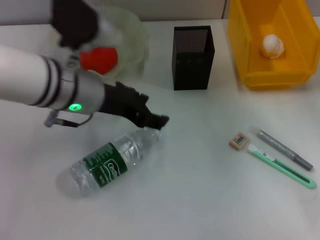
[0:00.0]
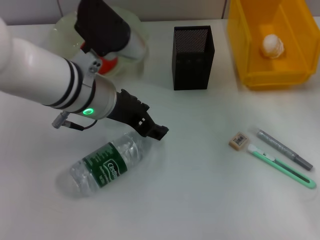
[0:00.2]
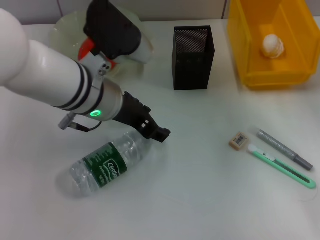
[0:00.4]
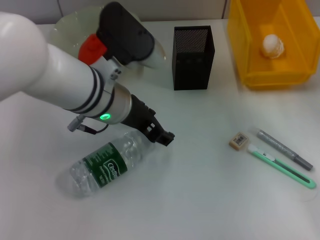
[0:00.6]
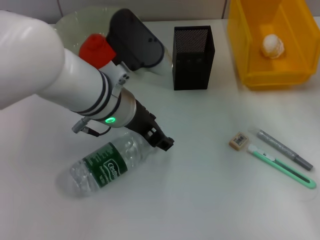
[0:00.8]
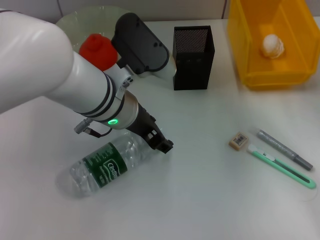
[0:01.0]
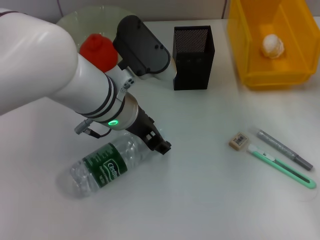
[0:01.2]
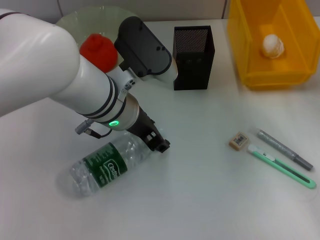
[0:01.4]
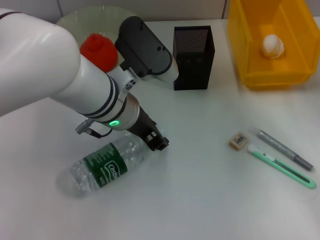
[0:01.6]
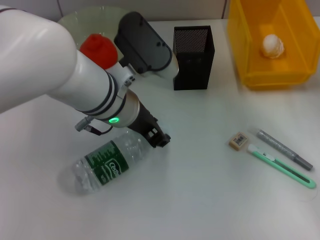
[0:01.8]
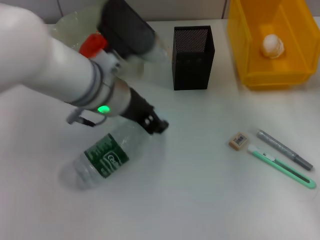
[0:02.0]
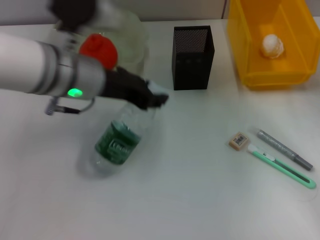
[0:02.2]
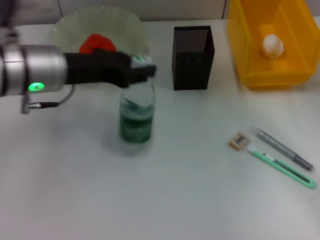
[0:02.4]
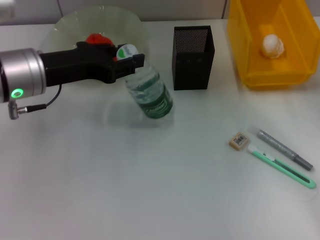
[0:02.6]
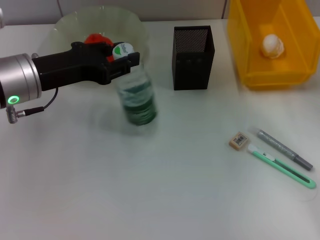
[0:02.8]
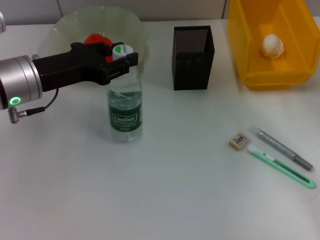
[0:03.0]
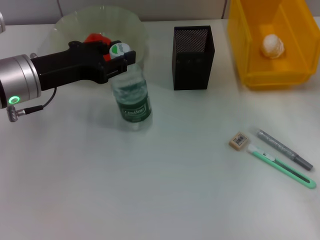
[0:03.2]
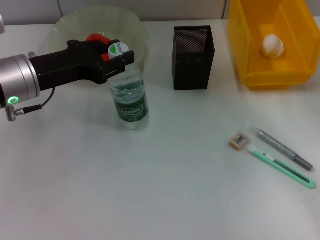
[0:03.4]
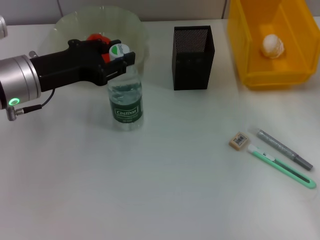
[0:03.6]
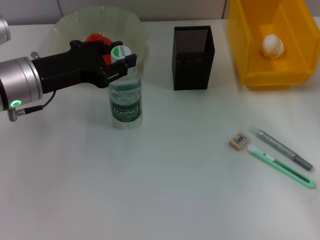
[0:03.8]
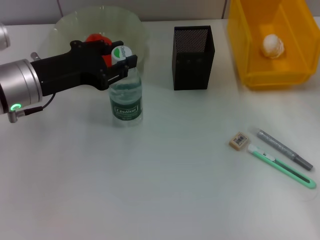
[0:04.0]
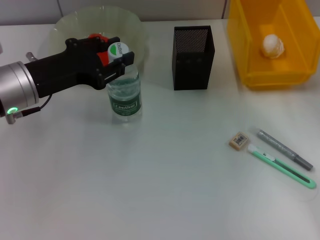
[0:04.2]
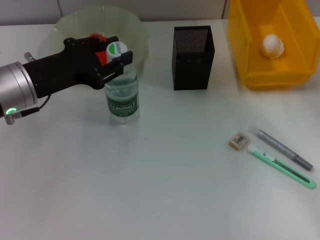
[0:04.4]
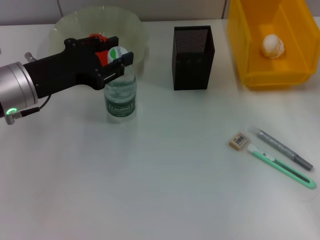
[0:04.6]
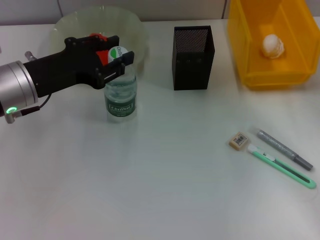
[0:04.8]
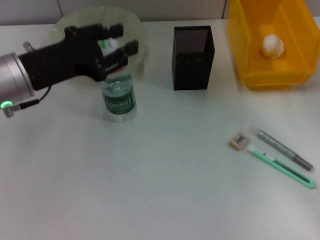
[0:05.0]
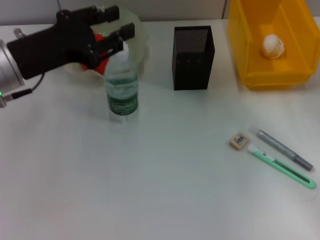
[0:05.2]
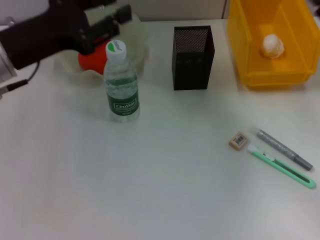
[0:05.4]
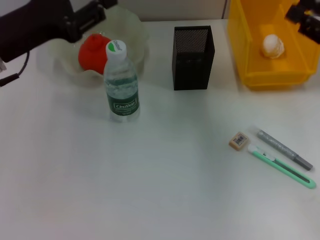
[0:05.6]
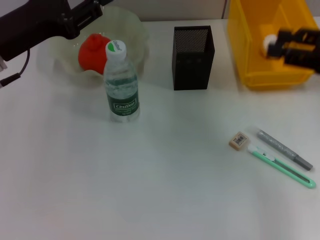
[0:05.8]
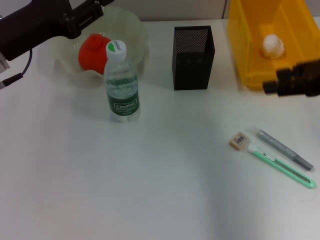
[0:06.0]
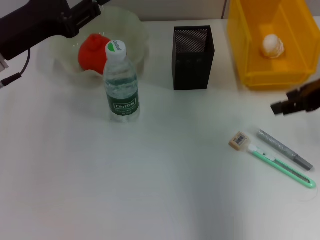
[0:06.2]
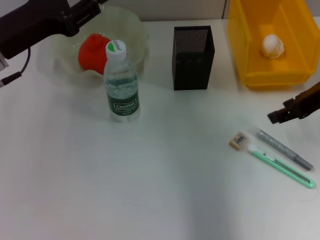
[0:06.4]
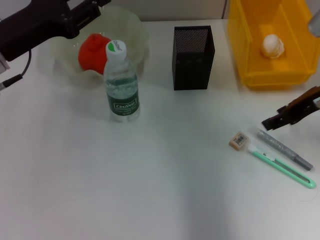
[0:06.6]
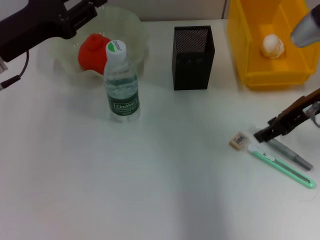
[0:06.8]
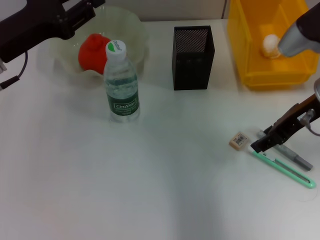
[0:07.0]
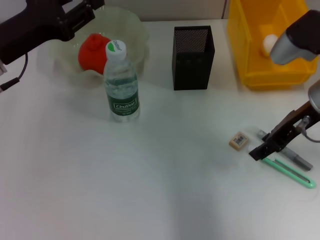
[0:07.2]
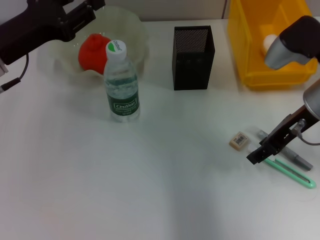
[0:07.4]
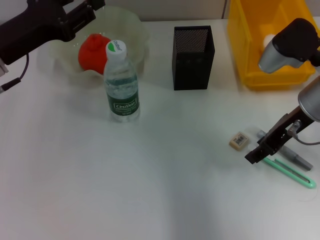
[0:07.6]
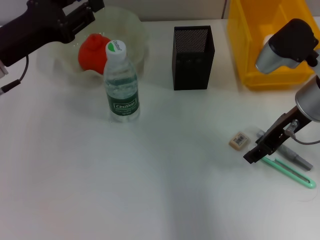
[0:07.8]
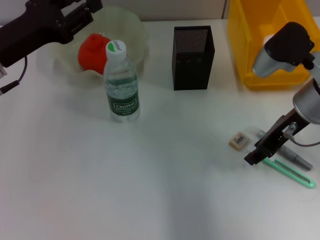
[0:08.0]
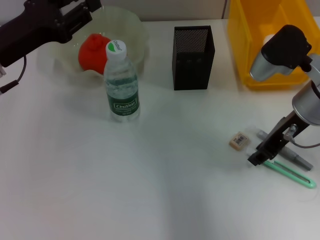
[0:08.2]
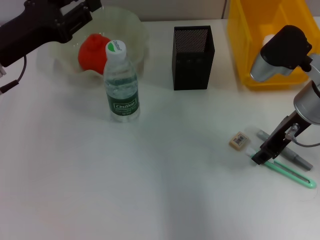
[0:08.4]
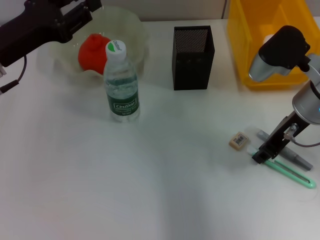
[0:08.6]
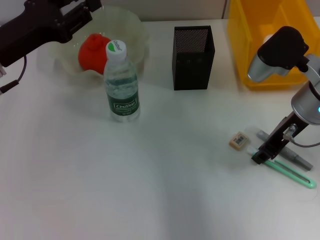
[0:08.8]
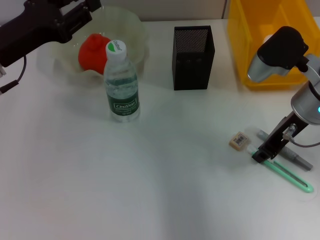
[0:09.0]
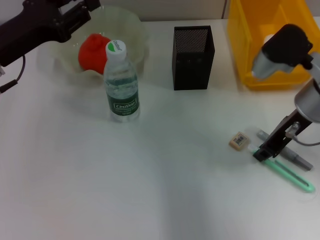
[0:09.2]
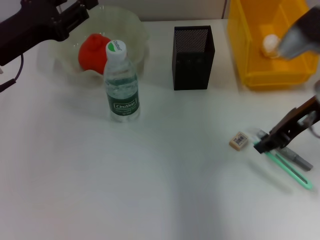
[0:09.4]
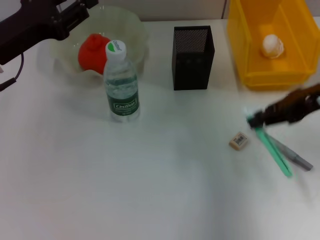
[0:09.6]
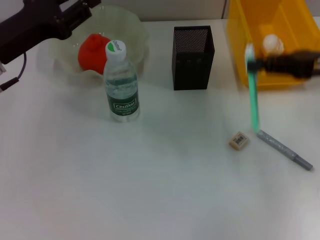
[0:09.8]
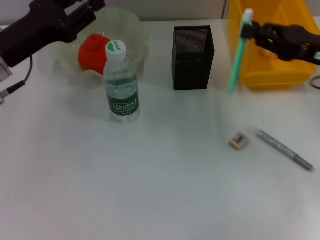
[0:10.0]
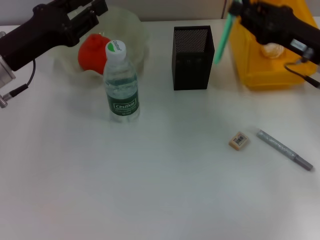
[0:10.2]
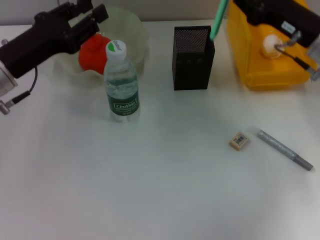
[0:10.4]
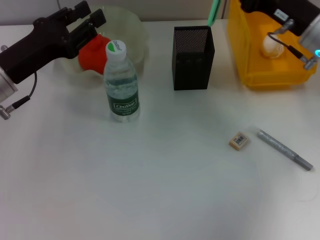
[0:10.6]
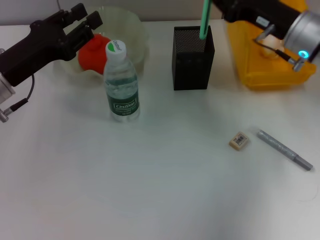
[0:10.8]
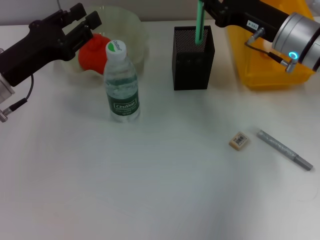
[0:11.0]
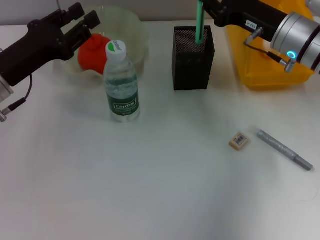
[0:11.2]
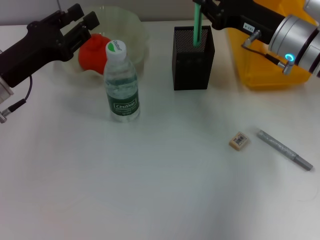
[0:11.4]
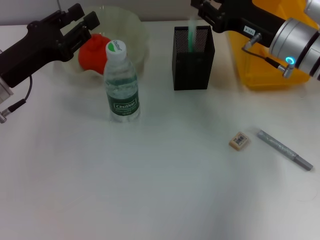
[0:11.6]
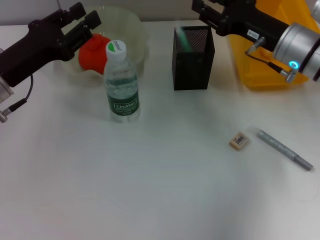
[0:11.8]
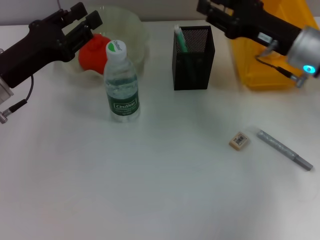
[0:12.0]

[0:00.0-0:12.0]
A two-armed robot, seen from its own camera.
Step, 0:00.0 to 0:01.4: Grab the water bottle with the left hand.
Step, 0:01.6 to 0:05.2: Place the water bottle on the table with the left hand.
Step, 0:05.4 to 0:08.8: Grab the blue utility knife with the right hand.
0:00.0 to 0:01.6: The left gripper heads to the right, covering about 5 cm.
0:01.6 to 0:03.0: The left gripper is displaced to the left by about 15 cm.
0:03.0 to 0:04.4: The grippers make only small movements.
0:04.4 to 0:06.0: The right gripper goes approximately 10 cm upward.
0:06.0 to 0:07.6: The right gripper heads to the left and downward, covering roughly 10 cm.
0:07.6 to 0:09.0: The right gripper closes up.
0:10.4 to 0:12.0: The right gripper opens its fingers.

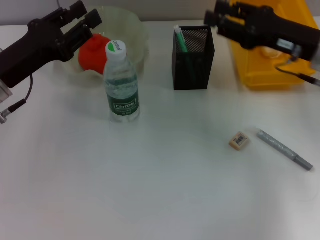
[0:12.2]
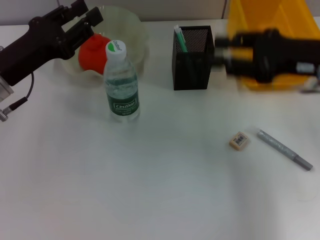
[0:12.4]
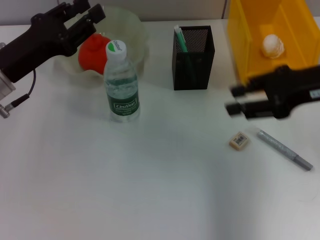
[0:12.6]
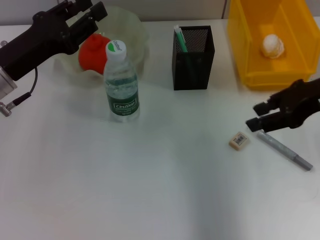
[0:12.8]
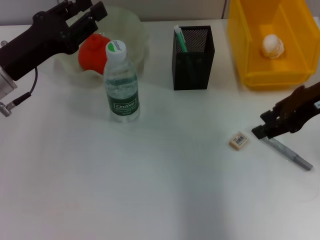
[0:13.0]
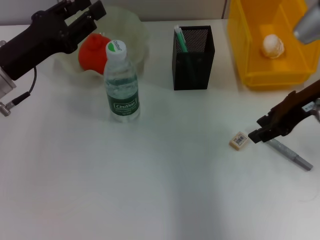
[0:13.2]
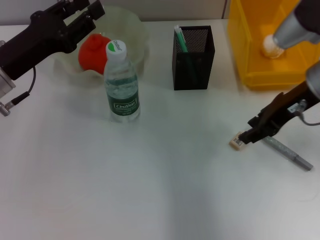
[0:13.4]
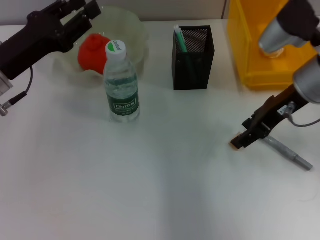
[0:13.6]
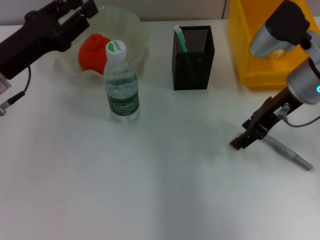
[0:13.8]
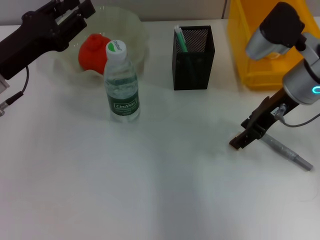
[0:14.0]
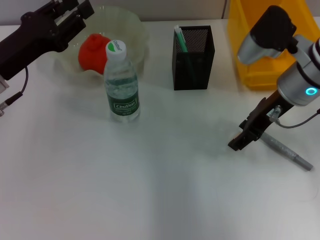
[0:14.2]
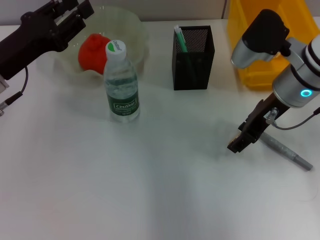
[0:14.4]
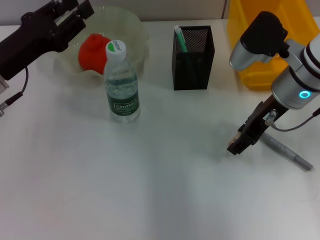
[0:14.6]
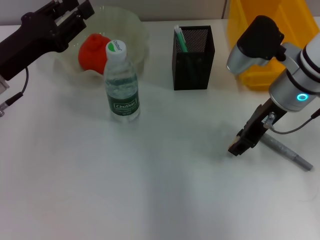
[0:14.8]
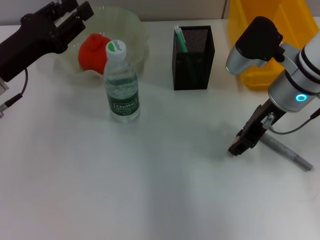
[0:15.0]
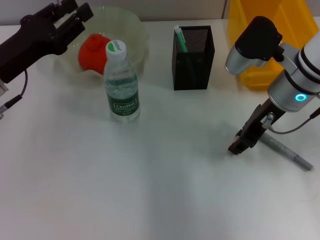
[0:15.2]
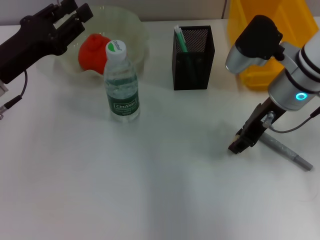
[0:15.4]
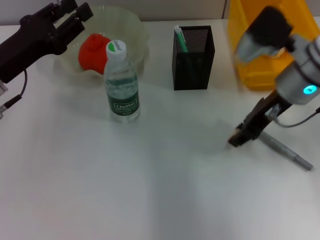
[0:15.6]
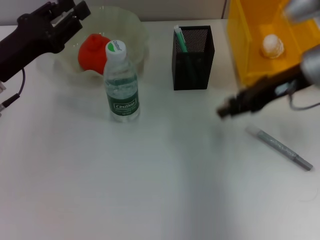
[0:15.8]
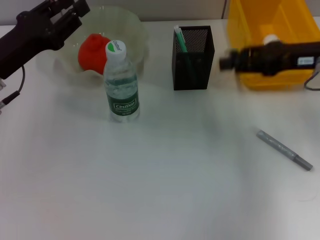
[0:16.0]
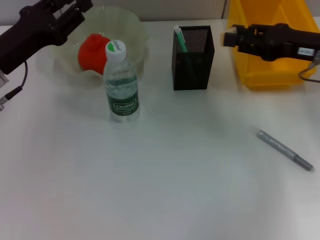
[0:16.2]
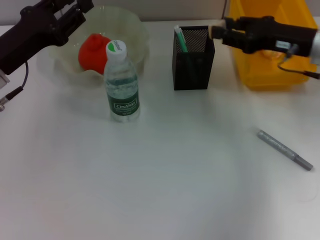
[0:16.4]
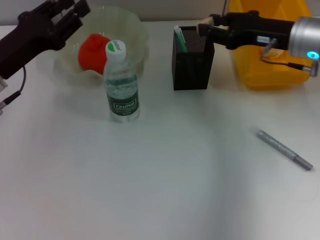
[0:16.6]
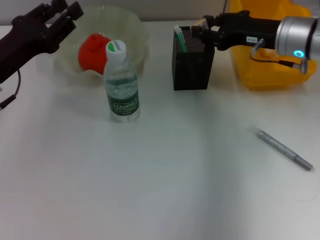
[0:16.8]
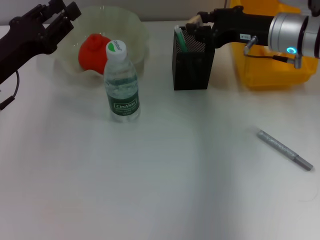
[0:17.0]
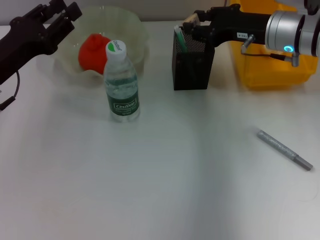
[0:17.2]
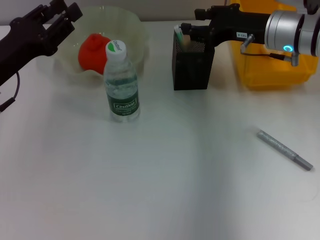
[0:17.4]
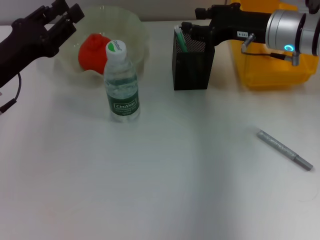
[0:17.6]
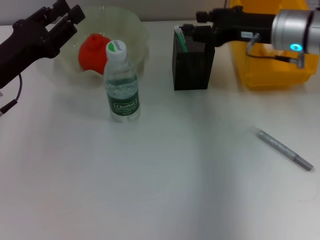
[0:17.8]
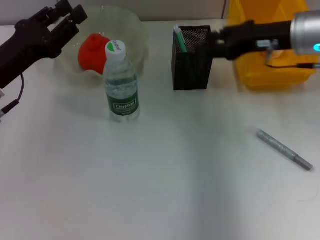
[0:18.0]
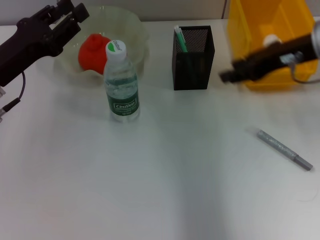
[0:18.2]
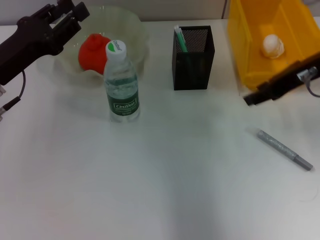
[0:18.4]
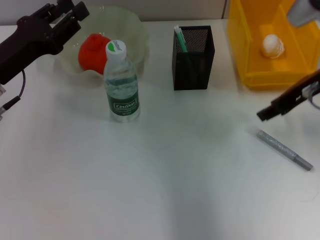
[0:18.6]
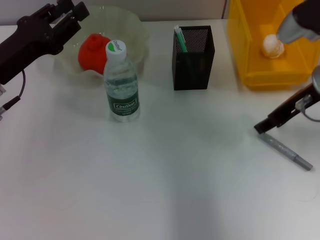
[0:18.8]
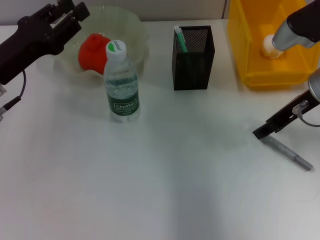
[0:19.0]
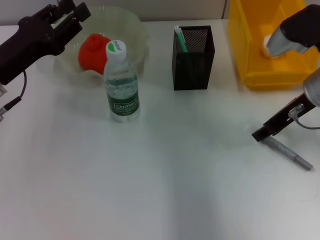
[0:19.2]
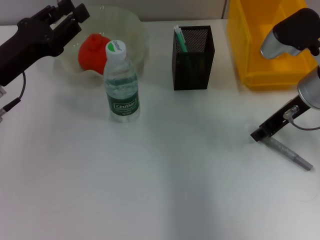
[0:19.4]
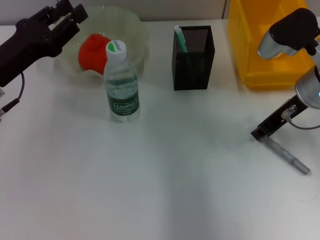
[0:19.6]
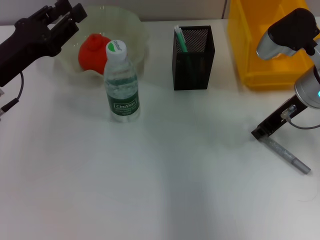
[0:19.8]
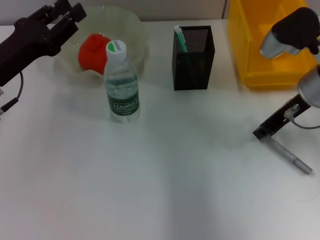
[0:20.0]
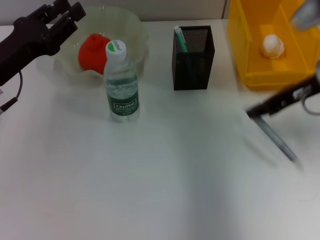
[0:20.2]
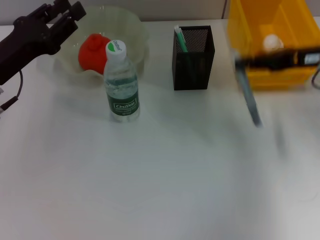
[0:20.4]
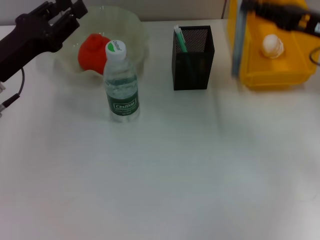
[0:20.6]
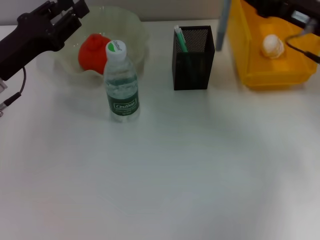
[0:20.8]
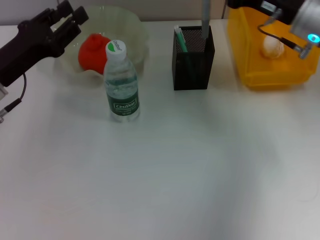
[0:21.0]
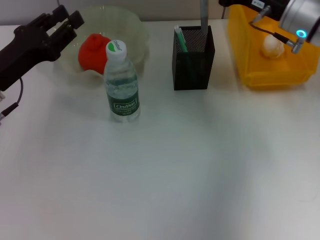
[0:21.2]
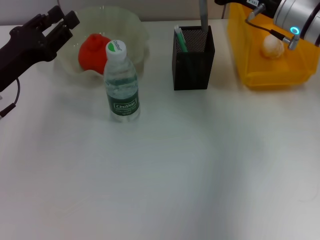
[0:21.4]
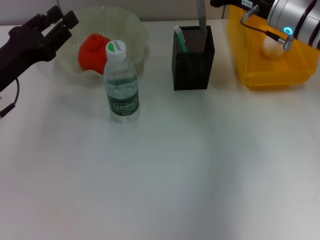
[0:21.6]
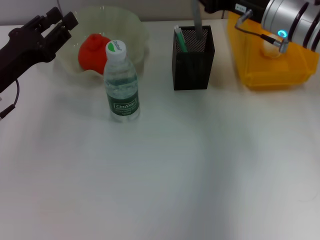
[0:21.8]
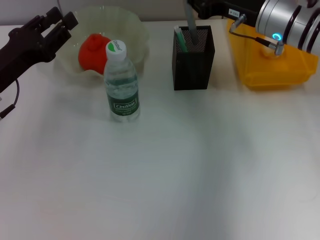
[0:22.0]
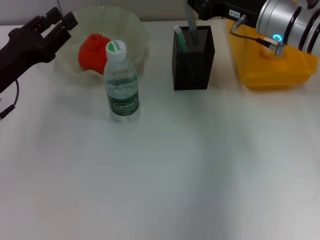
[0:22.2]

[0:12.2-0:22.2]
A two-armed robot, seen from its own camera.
Step, 0:12.4 to 0:15.0: Grab the eraser with the right hand.
Step, 0:15.2 to 0:17.6: Put the eraser into the pen holder with the right hand.
Step, 0:17.8 to 0:19.6: Grab the gray glue with the right hand.
0:13.6 to 0:15.0: The grippers move only a little.
0:15.0 to 0:16.4: The right gripper travels to the right by roughly 5 cm.
0:16.4 to 0:18.0: There are only small adjustments of the grippers.
0:19.4 to 0:20.8: The right gripper closes its fingers.
0:20.8 to 0:22.2: The right gripper is displaced to the left by some 5 cm.
